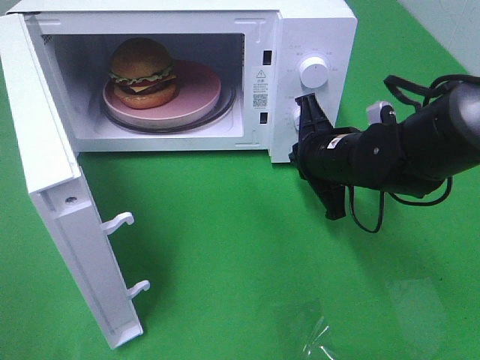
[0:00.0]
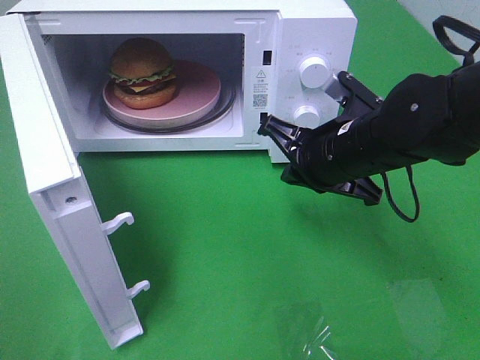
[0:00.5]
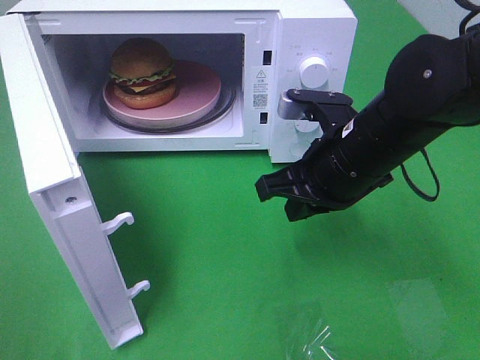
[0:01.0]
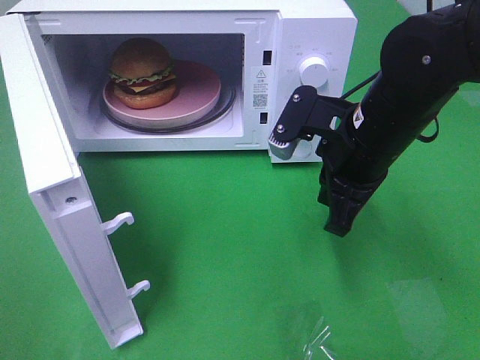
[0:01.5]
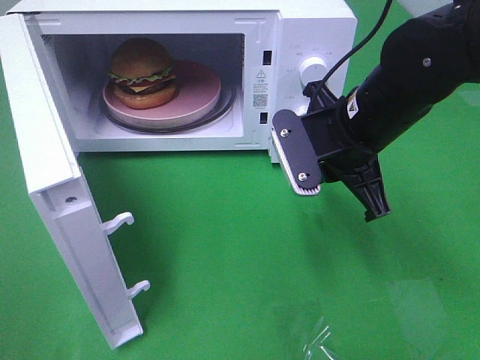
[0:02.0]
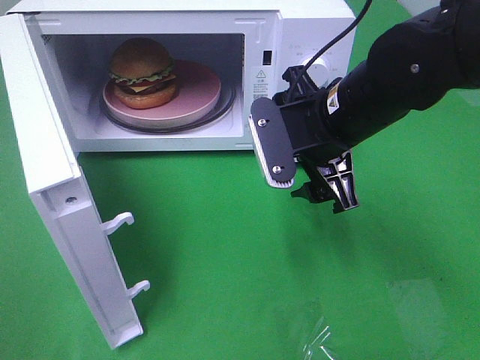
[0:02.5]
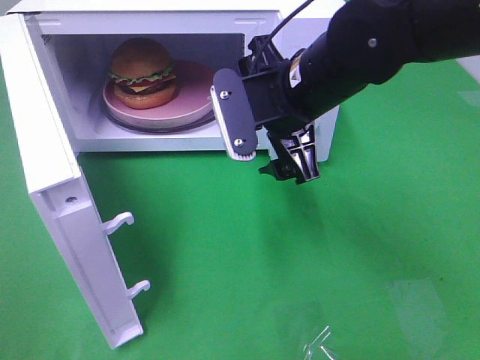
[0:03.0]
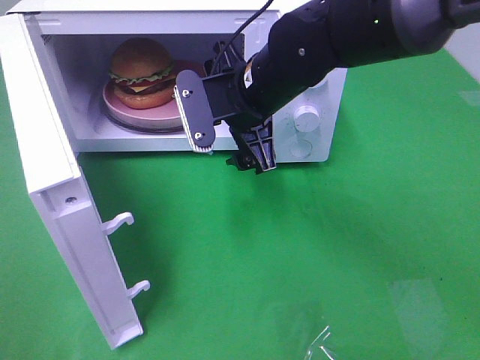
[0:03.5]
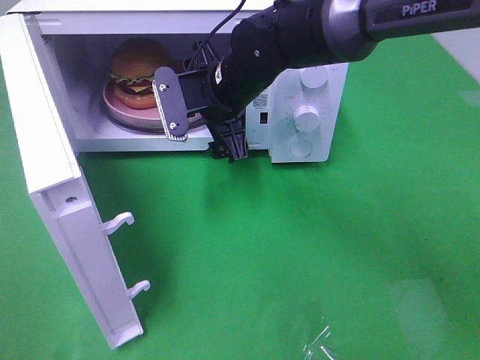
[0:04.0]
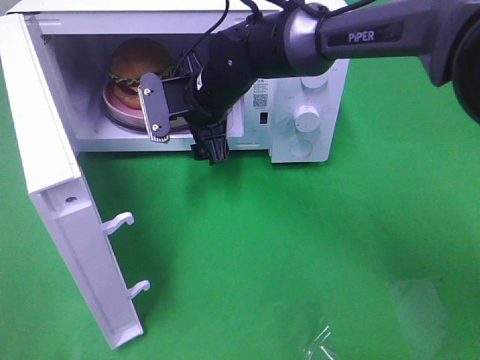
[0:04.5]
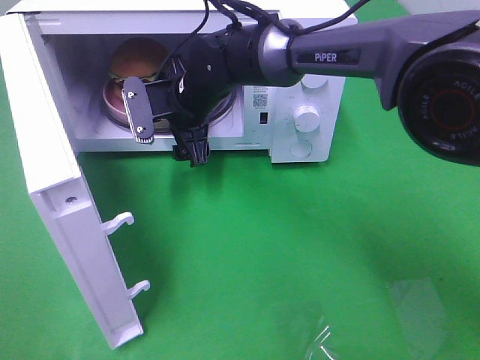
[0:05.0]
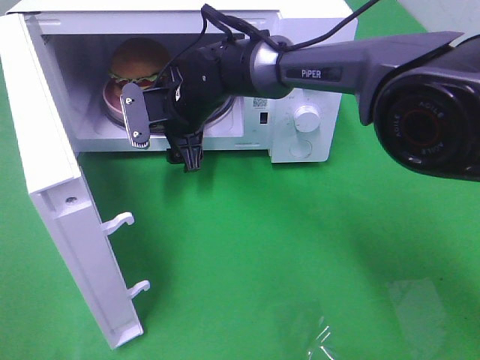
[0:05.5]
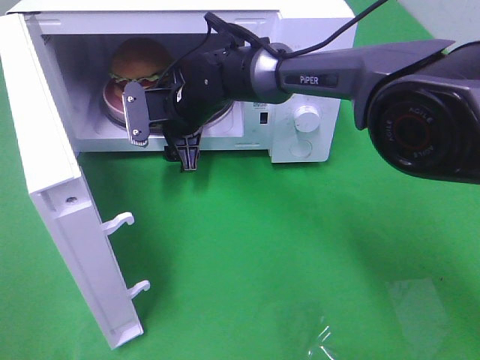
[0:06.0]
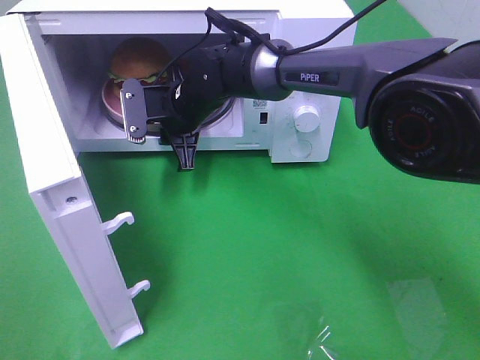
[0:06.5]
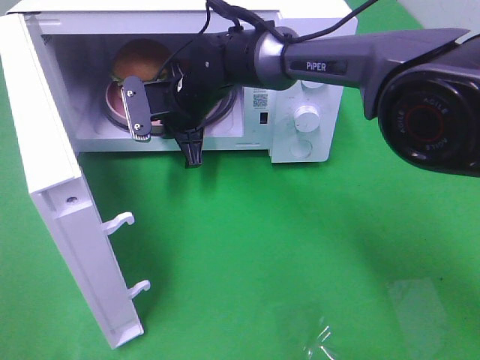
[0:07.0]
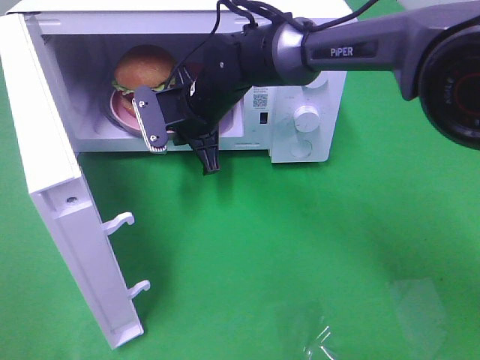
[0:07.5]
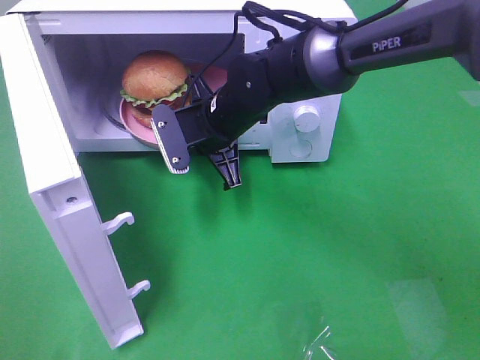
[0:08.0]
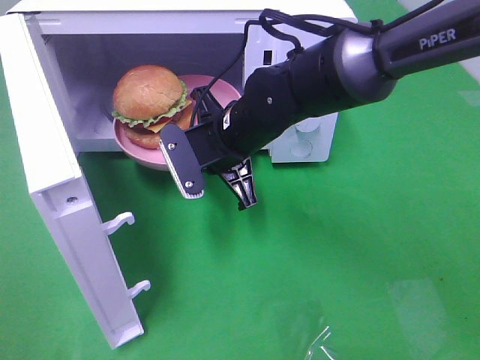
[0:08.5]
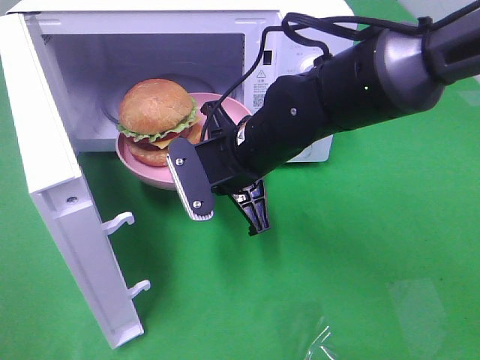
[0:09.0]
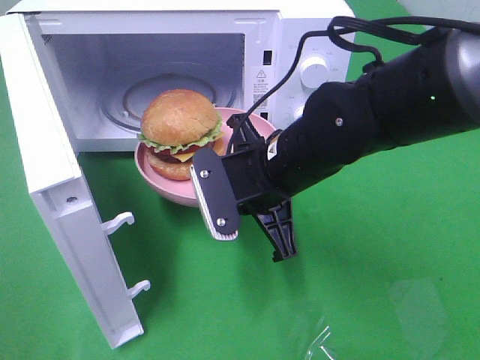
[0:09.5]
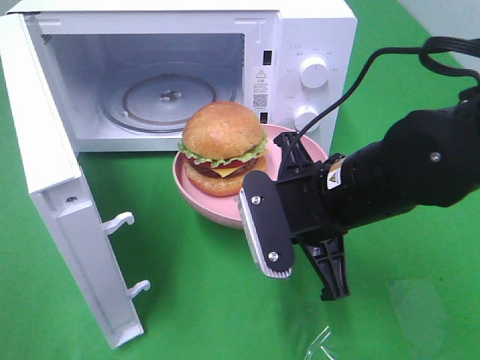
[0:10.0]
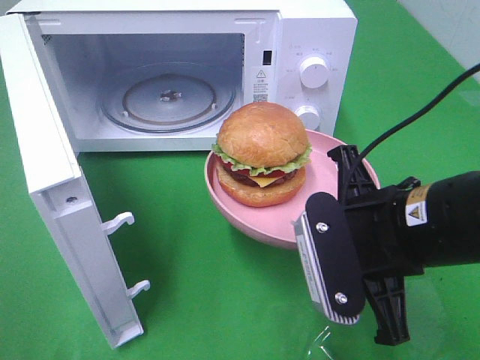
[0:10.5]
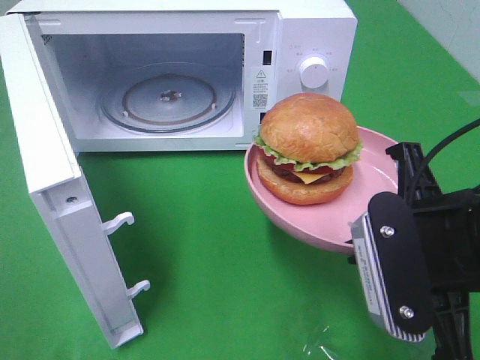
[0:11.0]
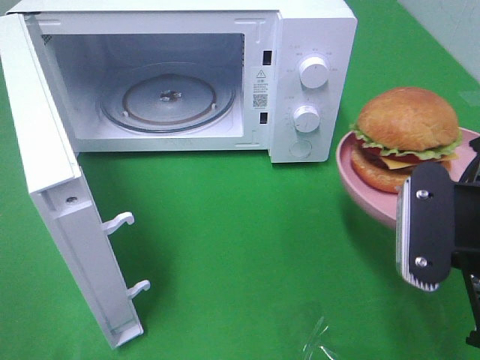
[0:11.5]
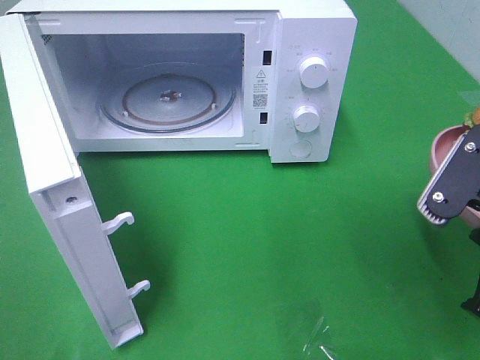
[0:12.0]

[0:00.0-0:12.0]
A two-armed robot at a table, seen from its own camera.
Task of the whole recording: Heat the burger.
Step, 0:00.5 to 0:07.5: Right hand: grab the plate with the hamburger.
0:00.0 to 0:02.0: The right gripper travels upward by some 5 cm.
0:02.0 to 0:04.0: The right gripper is displaced to the left and forward by approximately 15 cm, and opens.
0:04.0 to 0:06.0: The right gripper heads downward, covering roughly 5 cm.
0:06.0 to 0:08.0: The right gripper travels backward by roughly 5 cm, and closes.
0:08.0 to 0:10.0: The right gripper moves backward and to the right, about 20 cm.
0:10.0 to 0:12.0: The right gripper goes some 15 cm to the right and backward.

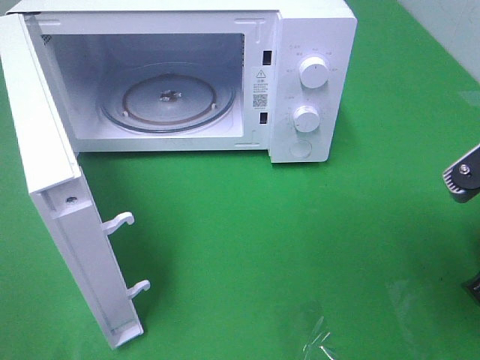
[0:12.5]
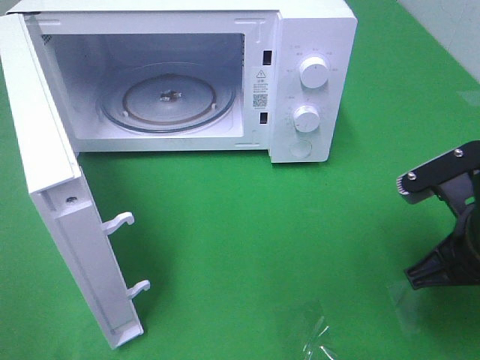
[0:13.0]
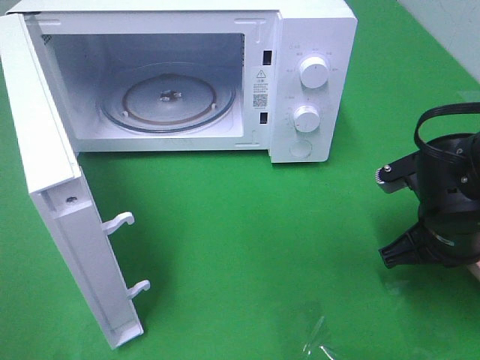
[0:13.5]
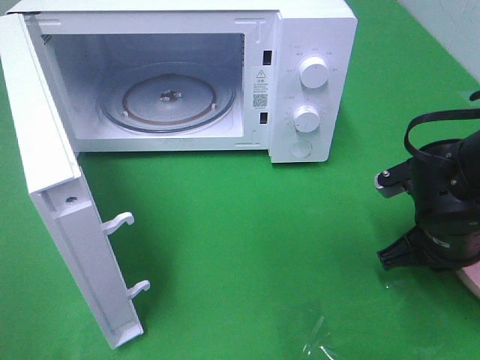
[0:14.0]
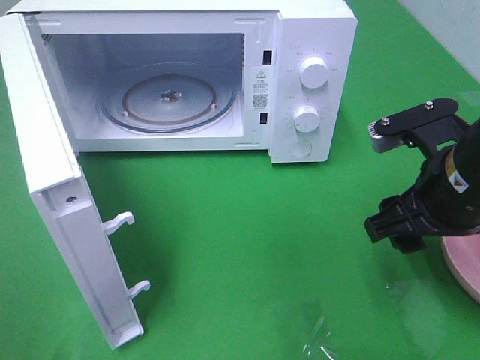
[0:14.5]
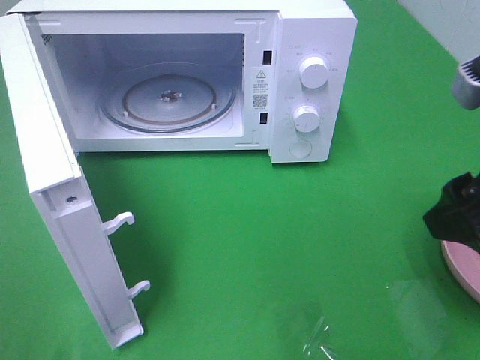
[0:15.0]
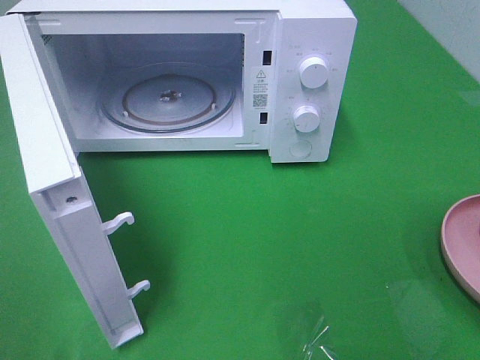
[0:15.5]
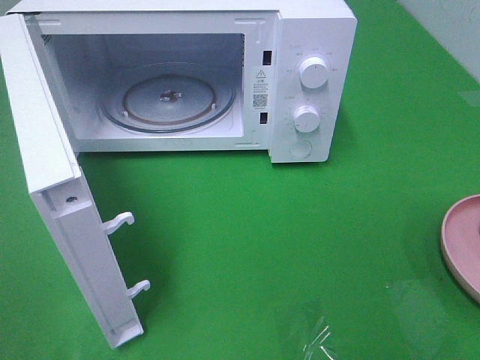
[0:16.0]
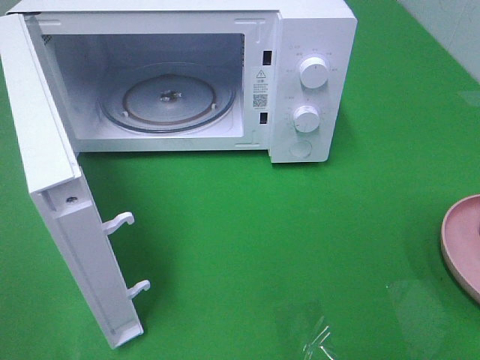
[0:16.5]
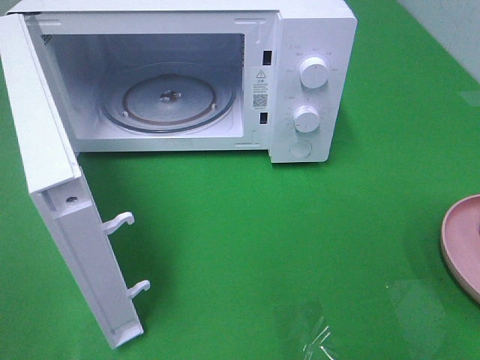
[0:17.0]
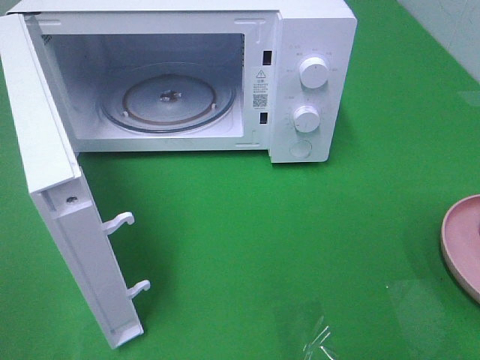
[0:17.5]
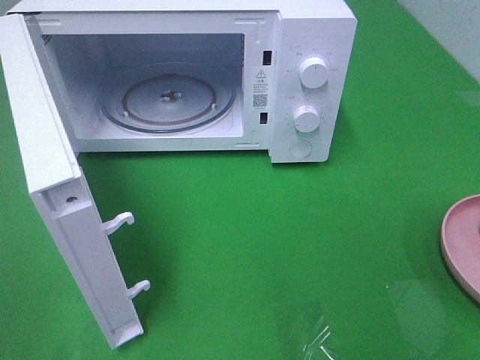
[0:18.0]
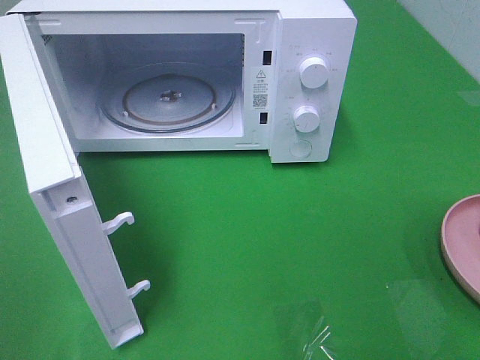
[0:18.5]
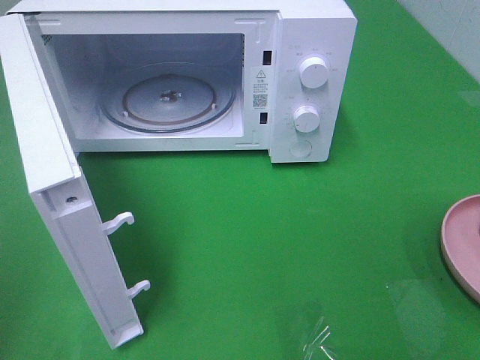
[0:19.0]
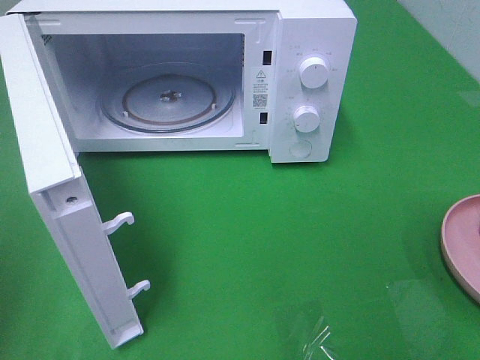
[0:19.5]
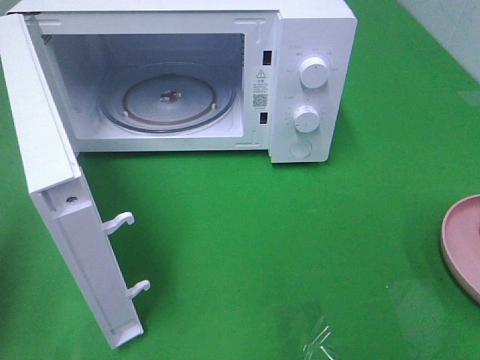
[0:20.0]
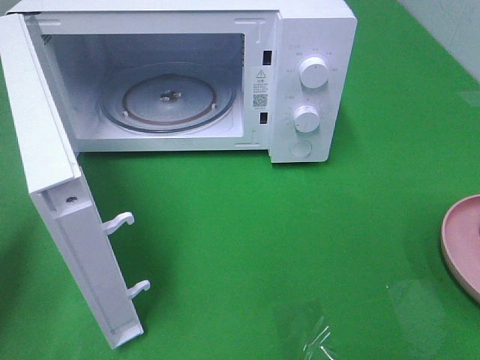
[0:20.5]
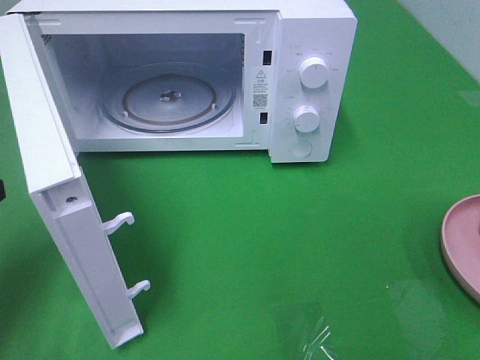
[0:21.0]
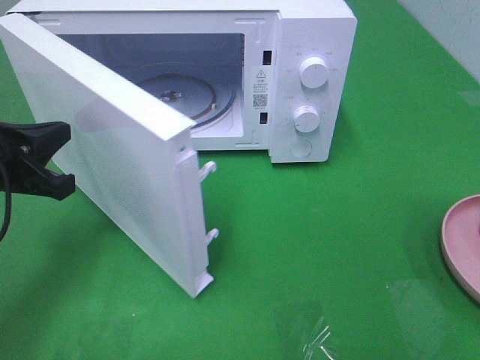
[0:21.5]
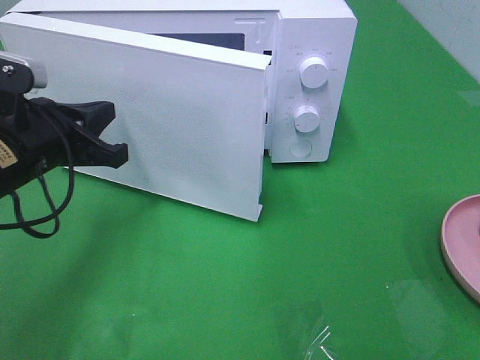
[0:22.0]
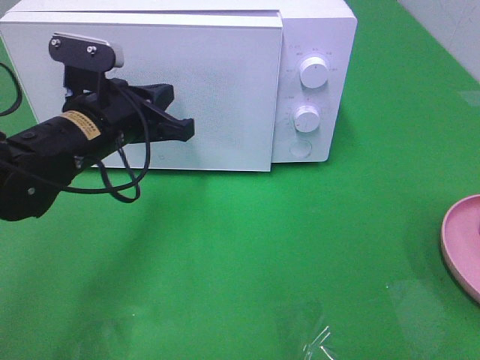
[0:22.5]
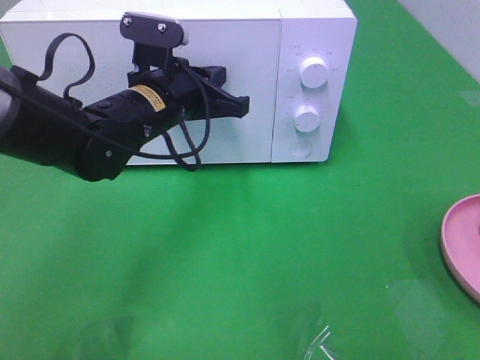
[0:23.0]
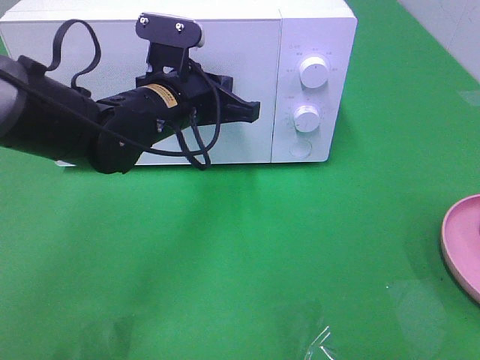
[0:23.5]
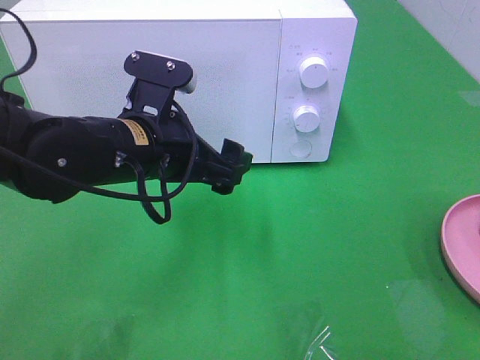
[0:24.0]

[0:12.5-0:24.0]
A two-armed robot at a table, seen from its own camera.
Task of the whole recording: Heat the burger.
Step, 0:12.5 to 0:14.5: Right hand: place the plate on the table.
Step, 0:15.0 to 0:23.5: Left hand: close the microwave door.
0:12.5 to 0:14.5: The right gripper is displaced forward by about 5 cm, travels downward and back again, some 10 cm each way, and opens its fingers.
0:14.5 to 0:16.5: The right gripper shifts roughly 25 cm backward, to the right and upward.
0:20.0 to 0:22.0: The left gripper heads forward, to the right and downward, covering approximately 20 cm.
0:22.0 to 0:24.0: The left gripper shifts roughly 10 cm to the right, and opens its fingers.

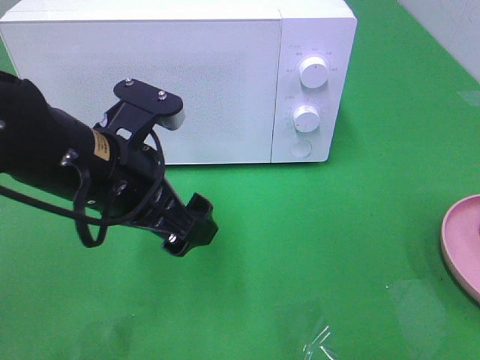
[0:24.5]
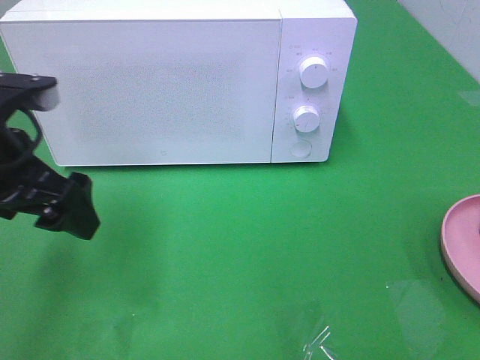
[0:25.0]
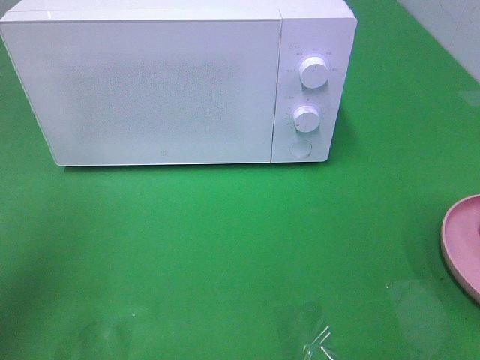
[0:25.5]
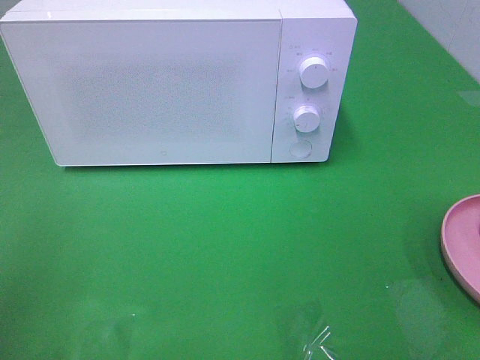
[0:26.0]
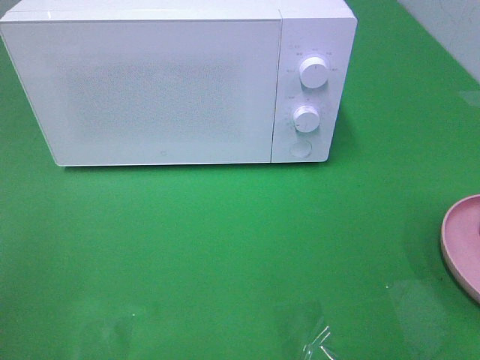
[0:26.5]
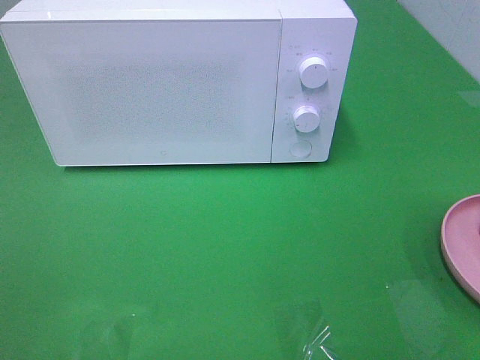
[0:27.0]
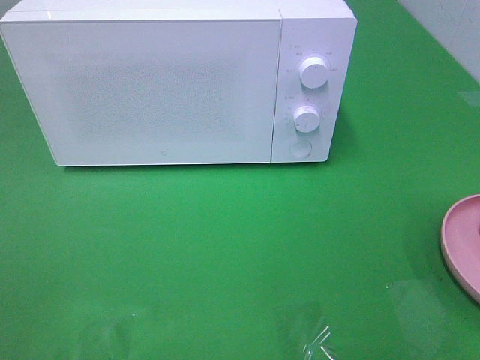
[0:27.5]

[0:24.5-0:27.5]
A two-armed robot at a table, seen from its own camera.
Task of the whole recording: Heat the burger.
0:24.5 to 0:26.0: The left gripper shifts roughly 25 cm to the left and backward.
